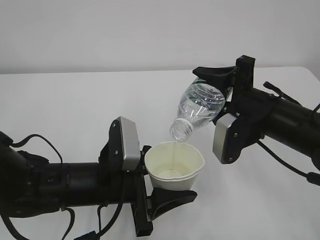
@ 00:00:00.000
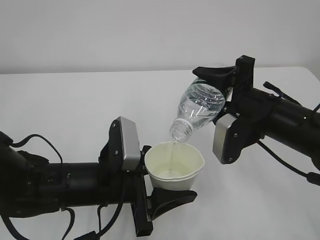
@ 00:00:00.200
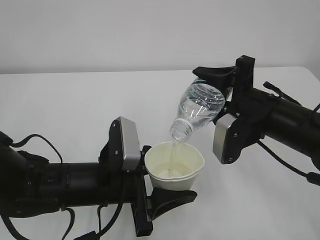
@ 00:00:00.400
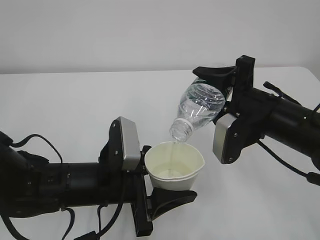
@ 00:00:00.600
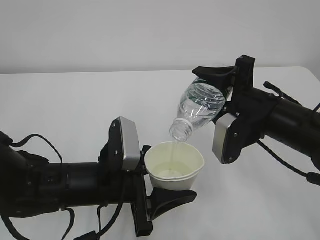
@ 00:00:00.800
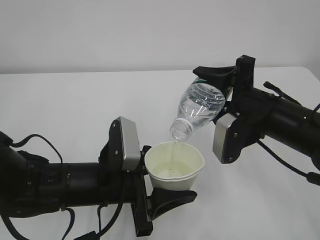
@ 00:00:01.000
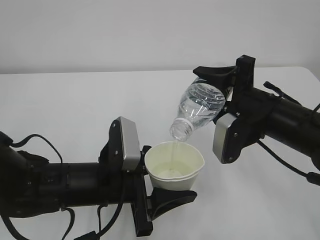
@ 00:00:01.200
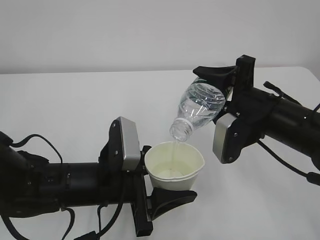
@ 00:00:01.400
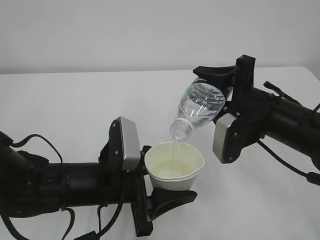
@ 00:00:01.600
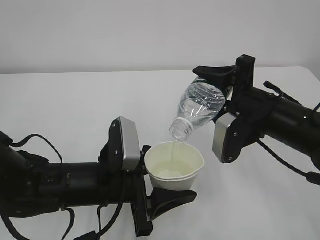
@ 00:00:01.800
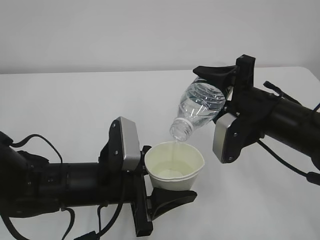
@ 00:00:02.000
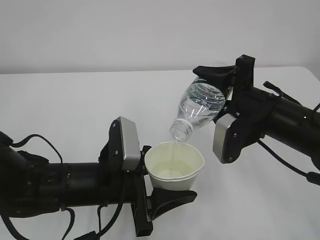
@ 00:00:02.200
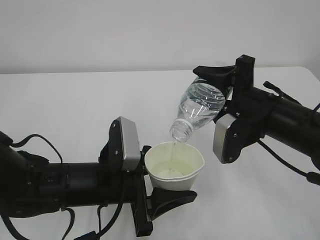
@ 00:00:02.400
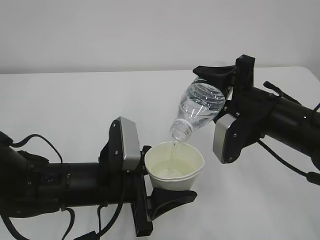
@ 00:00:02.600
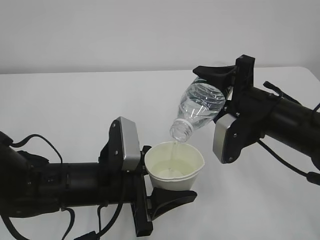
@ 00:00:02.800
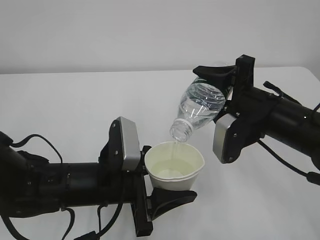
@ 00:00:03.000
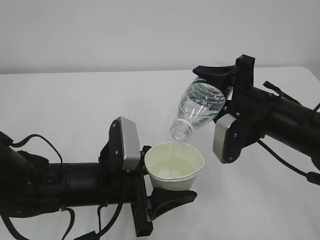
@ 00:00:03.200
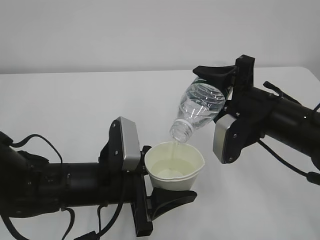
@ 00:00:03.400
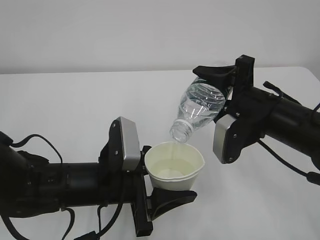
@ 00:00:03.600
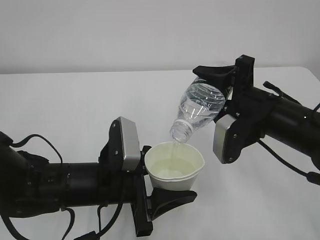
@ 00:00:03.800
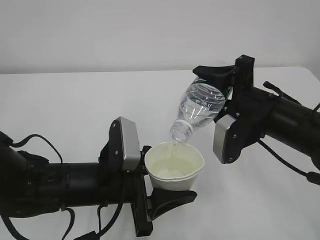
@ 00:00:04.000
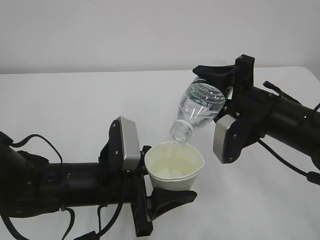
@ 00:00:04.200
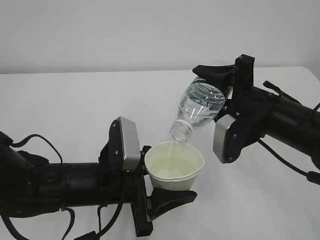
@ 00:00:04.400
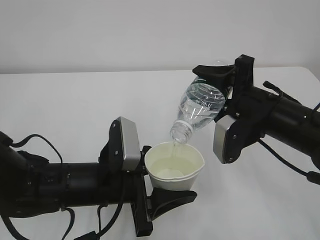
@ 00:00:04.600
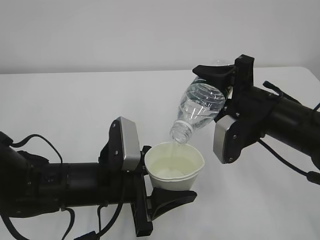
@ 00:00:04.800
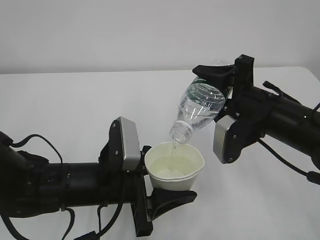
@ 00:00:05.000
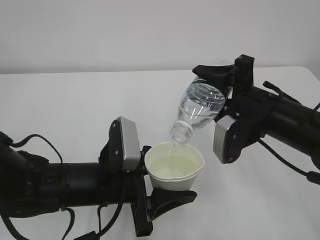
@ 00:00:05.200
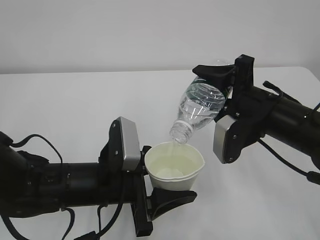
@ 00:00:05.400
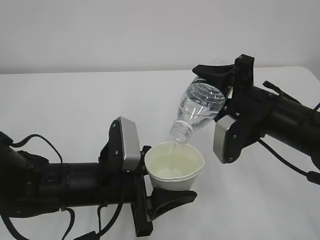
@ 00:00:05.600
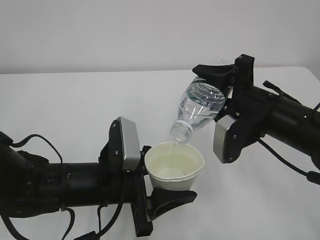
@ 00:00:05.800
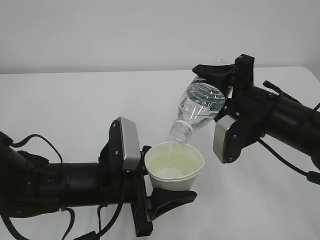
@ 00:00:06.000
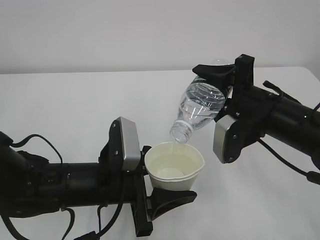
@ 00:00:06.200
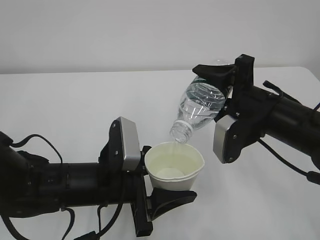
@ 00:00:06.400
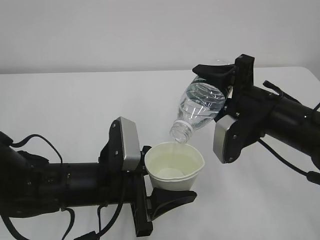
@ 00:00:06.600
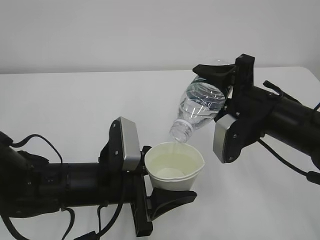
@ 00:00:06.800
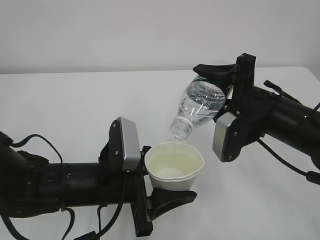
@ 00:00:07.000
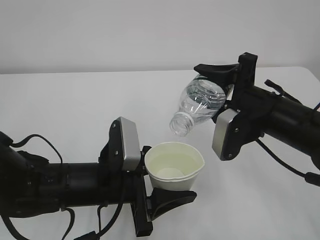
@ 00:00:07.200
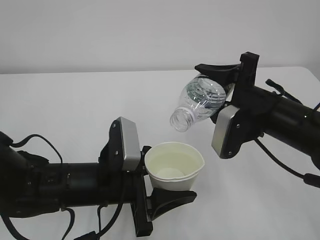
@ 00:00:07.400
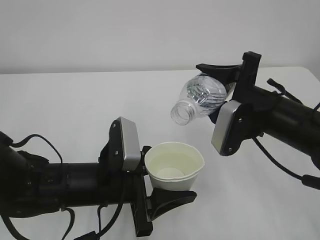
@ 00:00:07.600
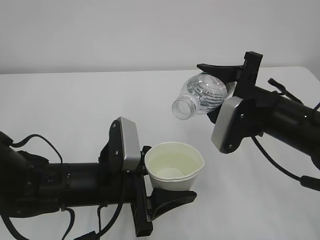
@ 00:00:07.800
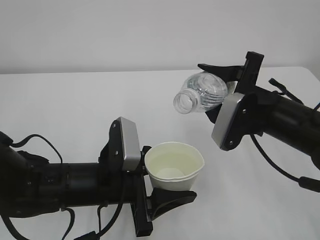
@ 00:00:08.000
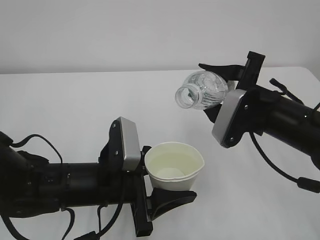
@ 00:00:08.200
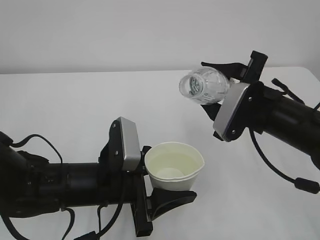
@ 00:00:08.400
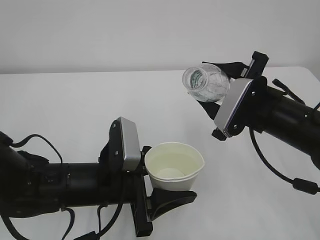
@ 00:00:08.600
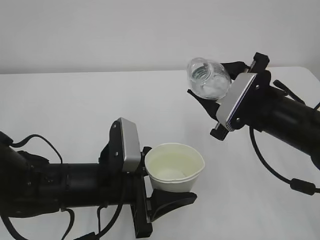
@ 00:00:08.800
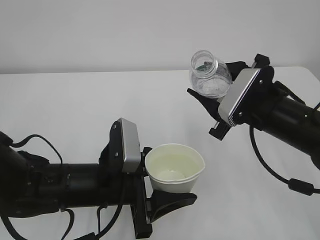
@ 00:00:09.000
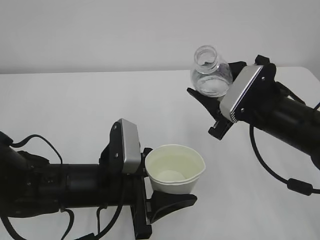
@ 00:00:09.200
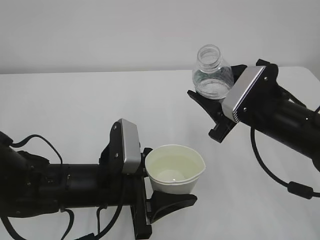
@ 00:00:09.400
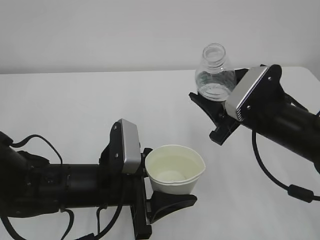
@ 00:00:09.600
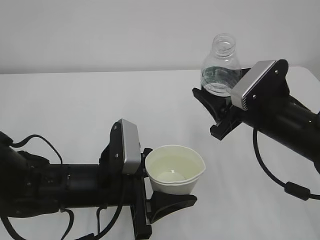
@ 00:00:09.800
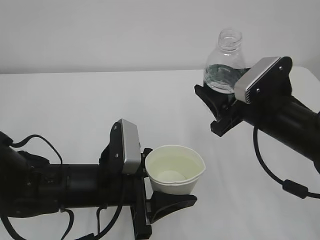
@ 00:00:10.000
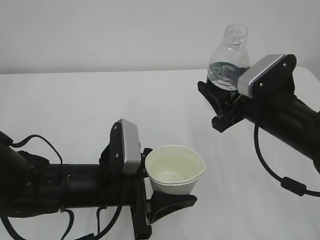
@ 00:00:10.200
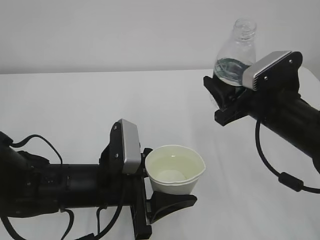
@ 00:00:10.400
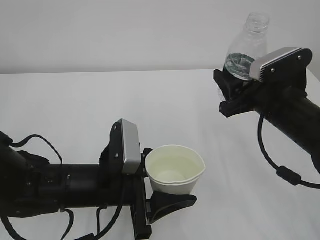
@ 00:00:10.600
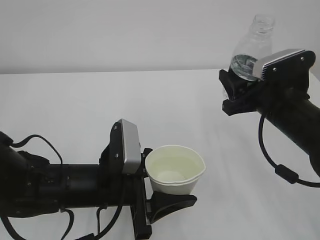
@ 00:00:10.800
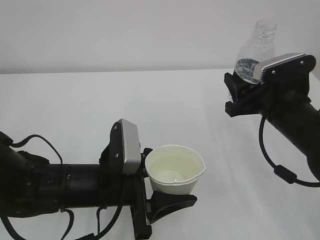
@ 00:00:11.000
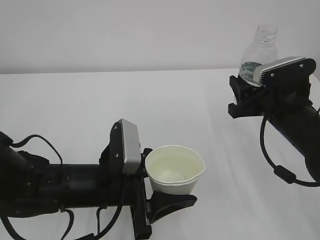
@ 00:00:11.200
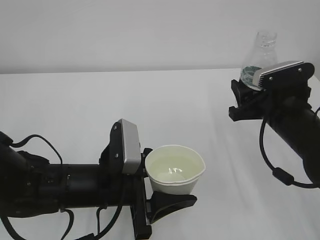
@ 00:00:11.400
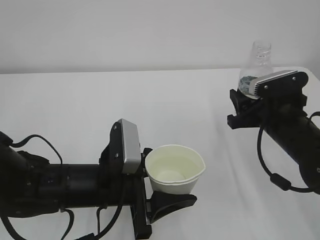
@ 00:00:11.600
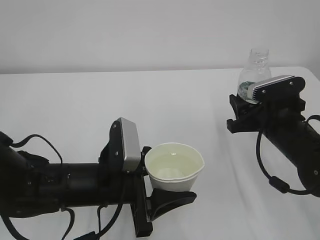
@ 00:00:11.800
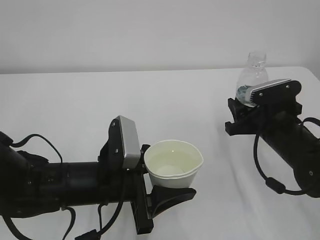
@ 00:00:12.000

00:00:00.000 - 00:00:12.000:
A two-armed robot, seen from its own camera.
00:00:00.000 - 00:00:06.000: Neither gripper changes place.
00:00:06.000 - 00:00:07.600: The grippers make only small movements.
00:00:10.400 - 00:00:12.000: The right gripper shifts about 5 cm downward.

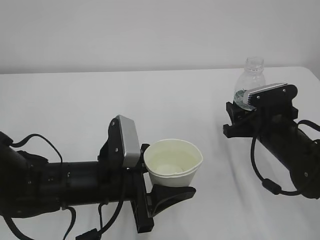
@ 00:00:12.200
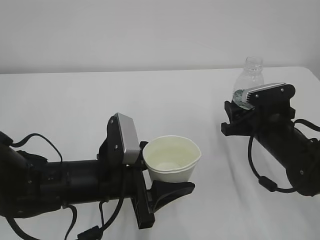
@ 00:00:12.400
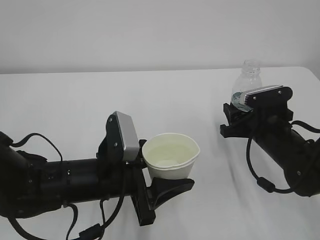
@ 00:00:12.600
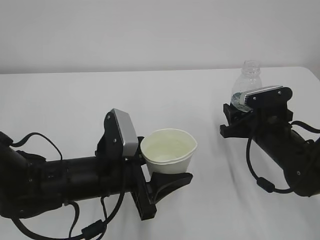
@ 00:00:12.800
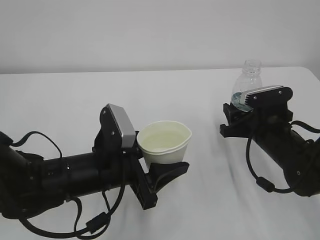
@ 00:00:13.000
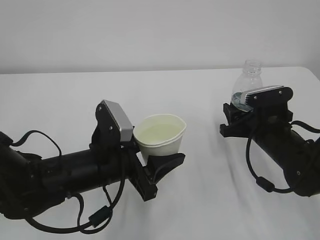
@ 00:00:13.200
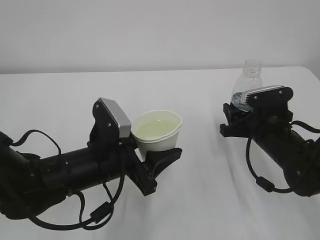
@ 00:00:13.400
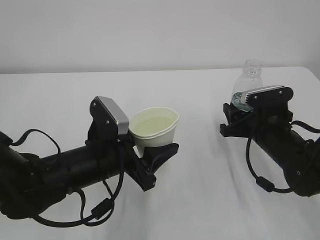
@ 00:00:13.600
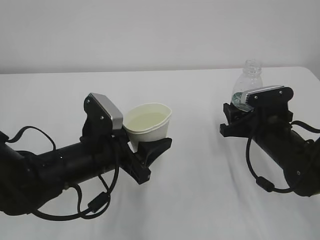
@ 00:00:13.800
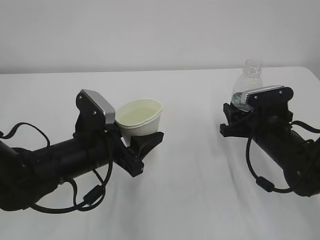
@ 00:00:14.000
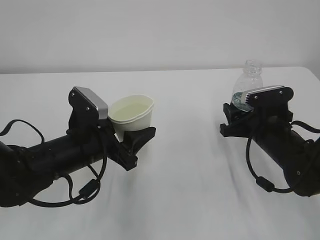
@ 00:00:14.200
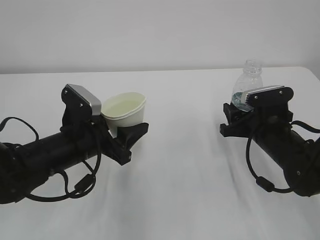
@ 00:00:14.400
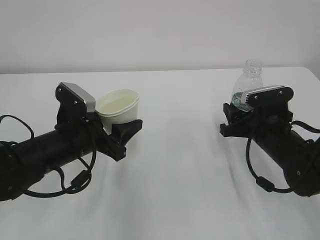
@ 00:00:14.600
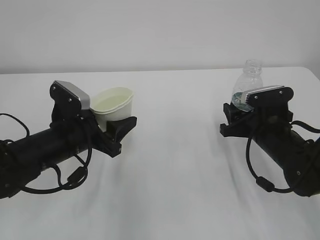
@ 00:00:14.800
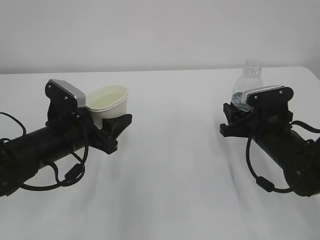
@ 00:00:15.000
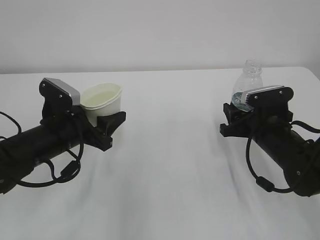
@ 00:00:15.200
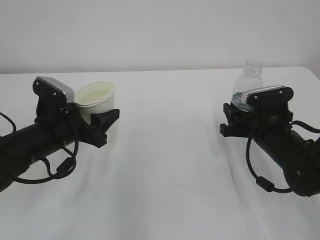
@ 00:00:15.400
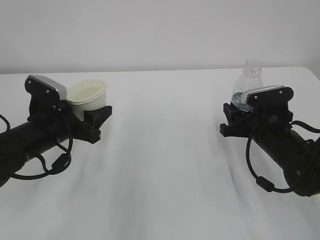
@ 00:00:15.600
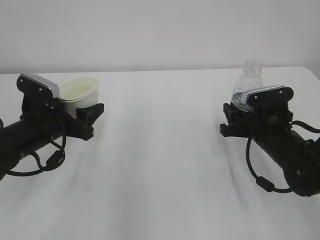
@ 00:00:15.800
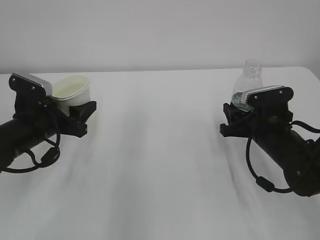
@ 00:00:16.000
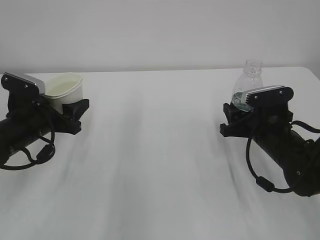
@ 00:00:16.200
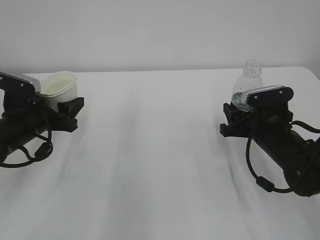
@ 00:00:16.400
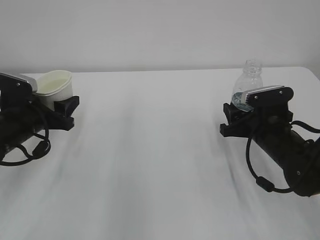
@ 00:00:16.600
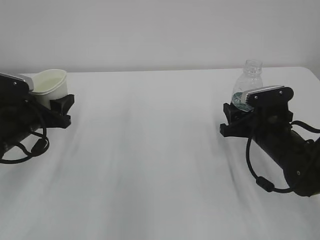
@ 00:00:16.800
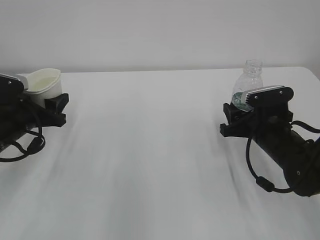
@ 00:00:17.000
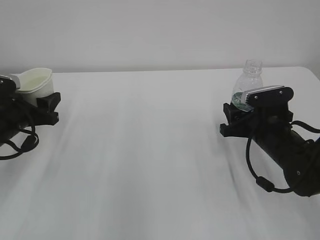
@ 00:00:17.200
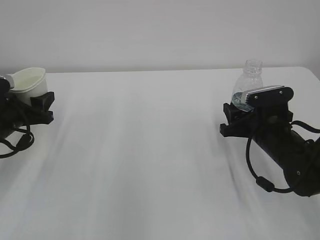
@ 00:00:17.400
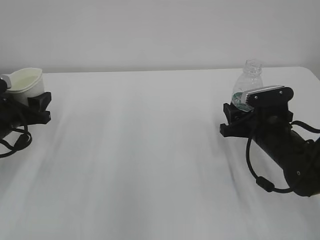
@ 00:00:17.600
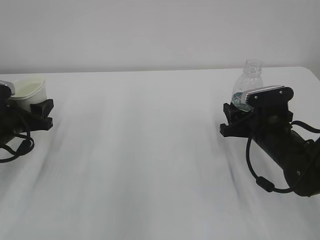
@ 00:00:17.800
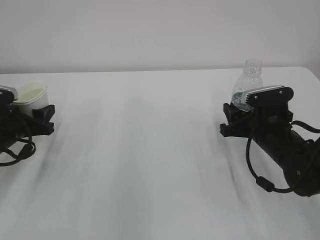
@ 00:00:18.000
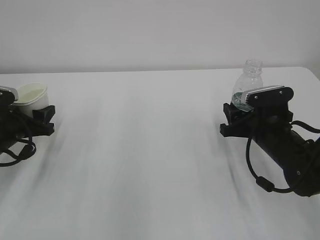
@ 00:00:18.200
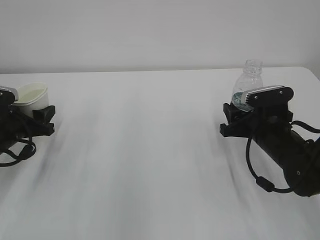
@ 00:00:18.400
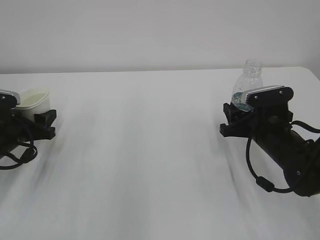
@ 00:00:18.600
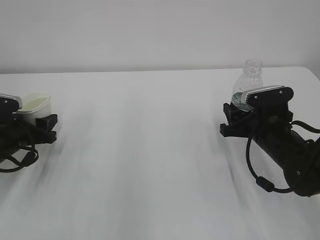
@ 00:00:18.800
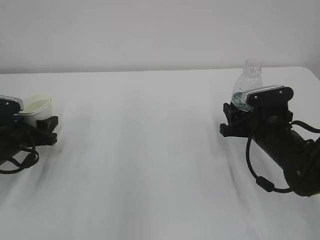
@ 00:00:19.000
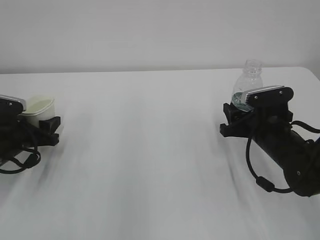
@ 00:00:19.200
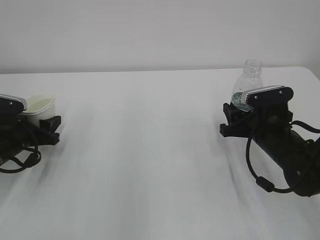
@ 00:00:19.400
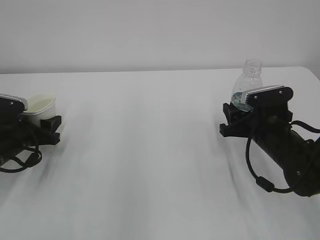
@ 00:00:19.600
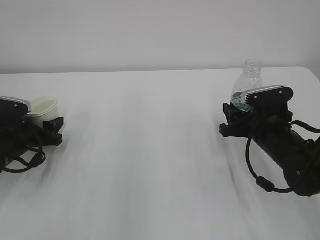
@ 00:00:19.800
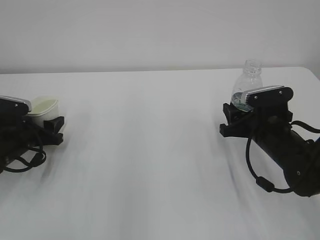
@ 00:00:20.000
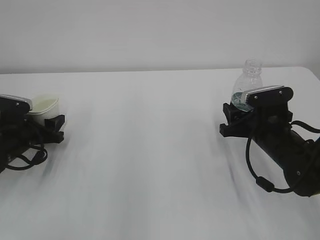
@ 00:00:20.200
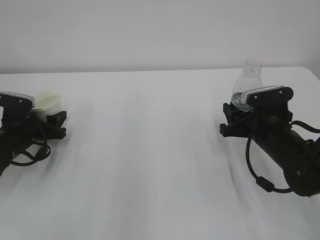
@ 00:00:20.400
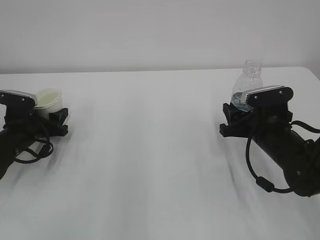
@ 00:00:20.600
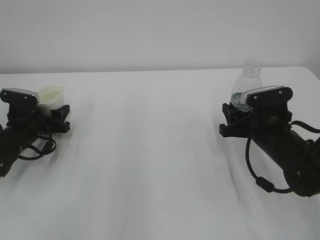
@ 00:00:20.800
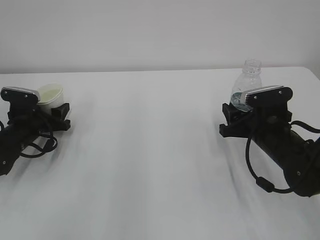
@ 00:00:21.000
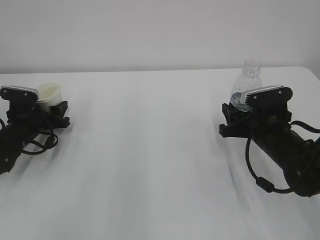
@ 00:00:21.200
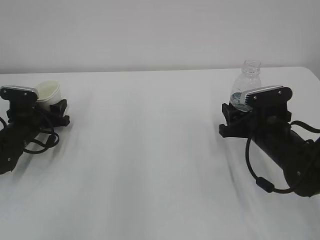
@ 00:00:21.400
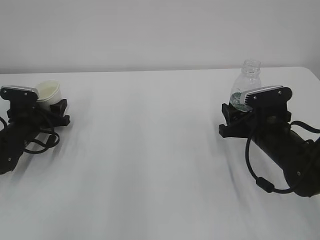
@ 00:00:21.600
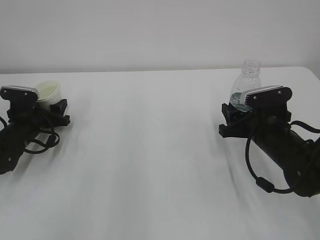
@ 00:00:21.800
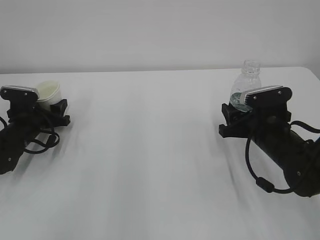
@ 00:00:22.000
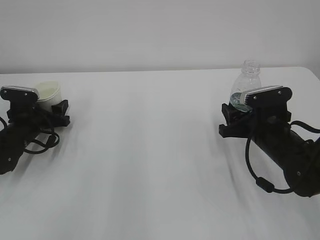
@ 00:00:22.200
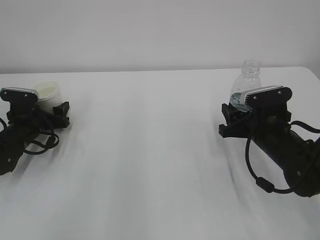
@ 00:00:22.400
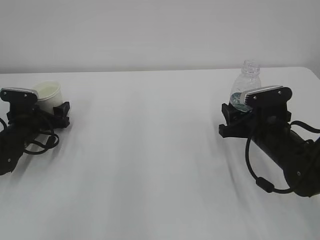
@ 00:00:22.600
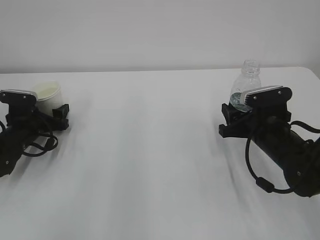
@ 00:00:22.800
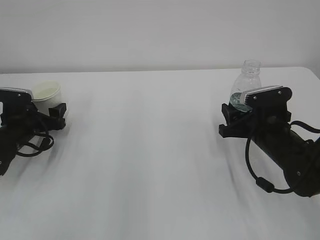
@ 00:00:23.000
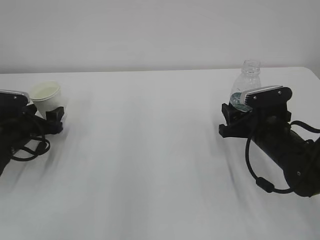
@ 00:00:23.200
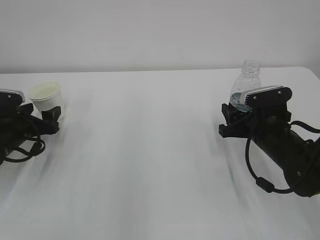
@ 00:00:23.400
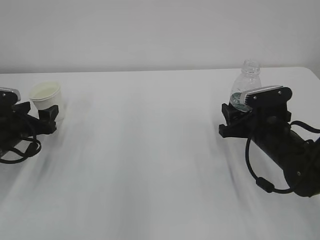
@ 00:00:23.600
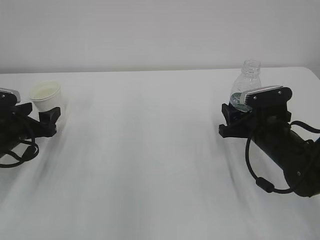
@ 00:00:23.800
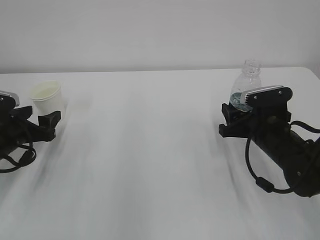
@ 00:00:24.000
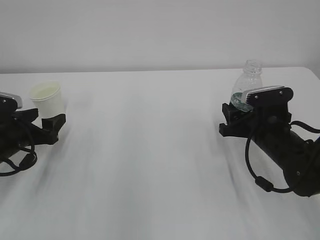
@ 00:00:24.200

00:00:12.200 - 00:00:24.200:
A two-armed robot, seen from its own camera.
00:00:13.800 - 00:00:15.200: The left gripper goes some 5 cm to the left.
00:00:15.200 - 00:00:16.600: The left gripper heads to the left, covering approximately 10 cm.
00:00:16.600 - 00:00:18.200: The left gripper moves about 5 cm.
00:00:18.200 - 00:00:19.800: The grippers make only small movements.
00:00:19.800 - 00:00:21.200: The left gripper moves forward, roughly 5 cm.
00:00:21.200 - 00:00:22.600: The left gripper opens its fingers.
00:00:22.600 - 00:00:24.200: The left gripper travels backward by approximately 10 cm.
